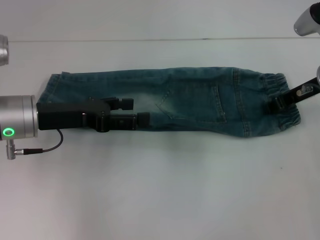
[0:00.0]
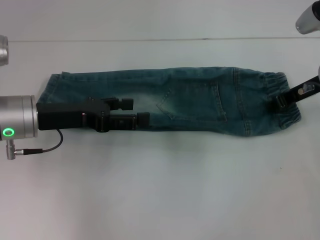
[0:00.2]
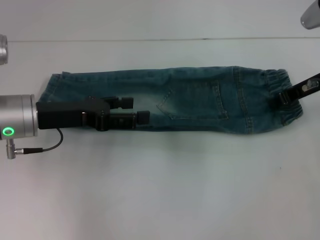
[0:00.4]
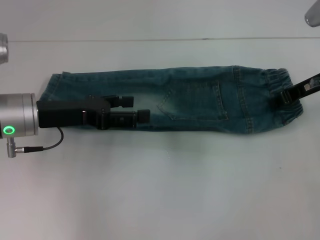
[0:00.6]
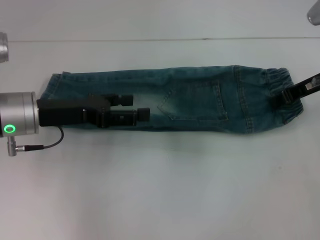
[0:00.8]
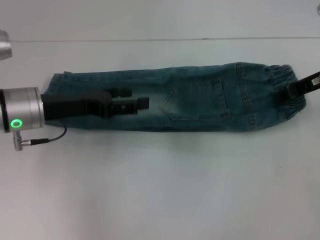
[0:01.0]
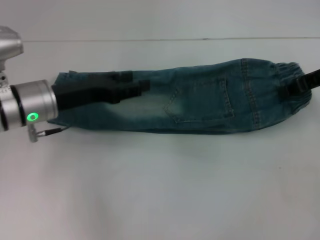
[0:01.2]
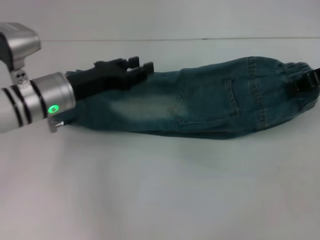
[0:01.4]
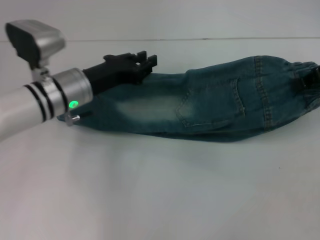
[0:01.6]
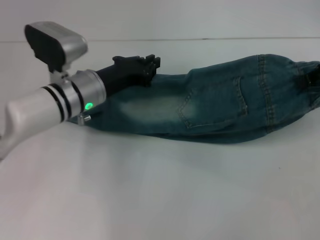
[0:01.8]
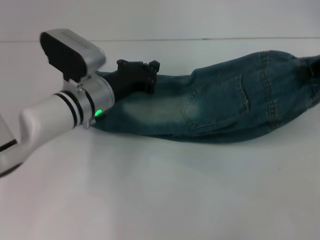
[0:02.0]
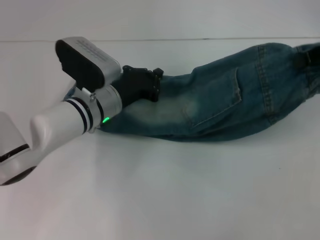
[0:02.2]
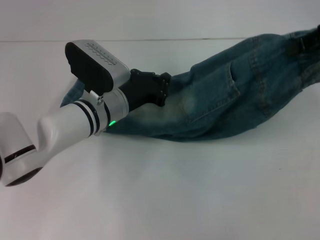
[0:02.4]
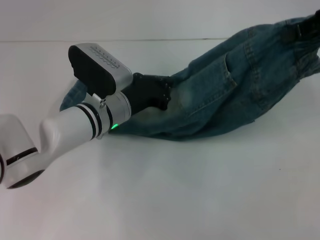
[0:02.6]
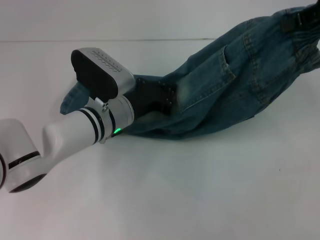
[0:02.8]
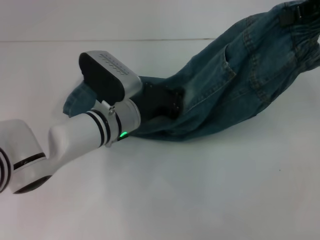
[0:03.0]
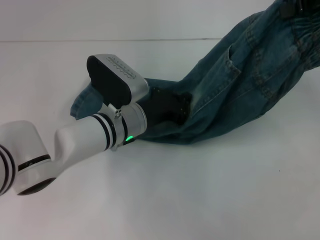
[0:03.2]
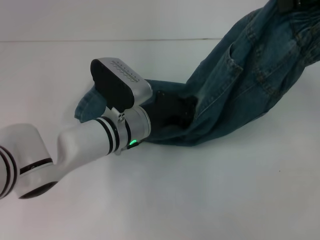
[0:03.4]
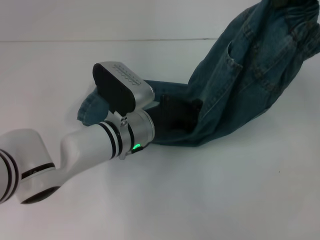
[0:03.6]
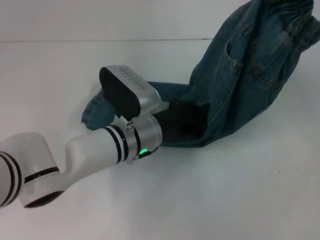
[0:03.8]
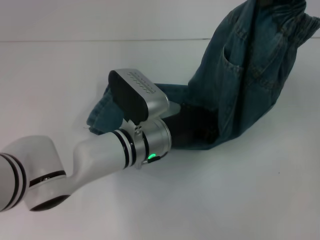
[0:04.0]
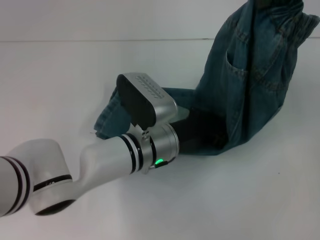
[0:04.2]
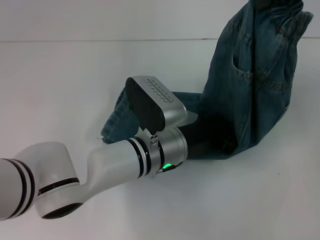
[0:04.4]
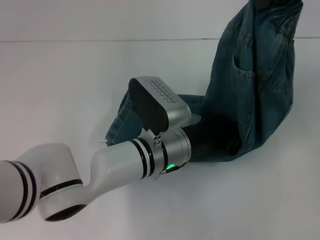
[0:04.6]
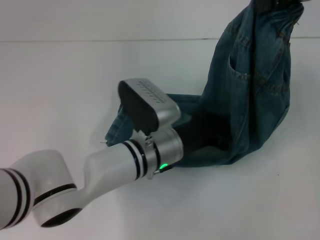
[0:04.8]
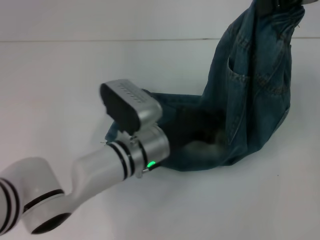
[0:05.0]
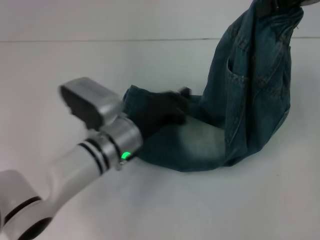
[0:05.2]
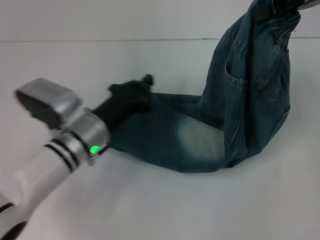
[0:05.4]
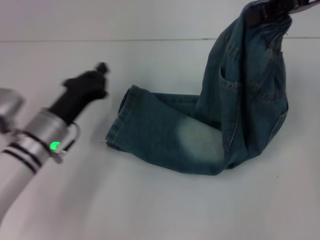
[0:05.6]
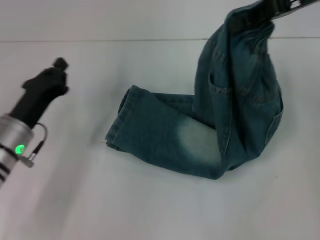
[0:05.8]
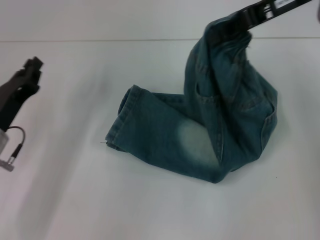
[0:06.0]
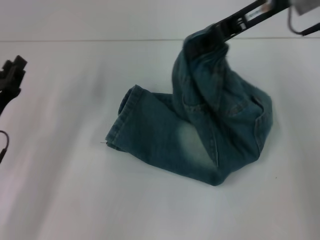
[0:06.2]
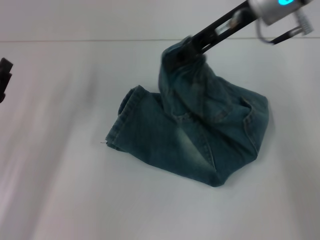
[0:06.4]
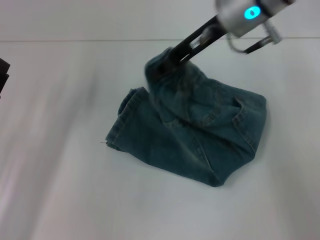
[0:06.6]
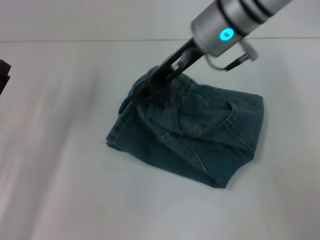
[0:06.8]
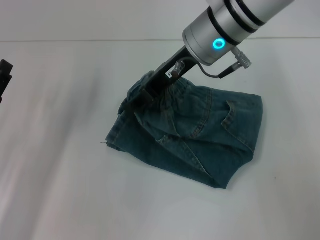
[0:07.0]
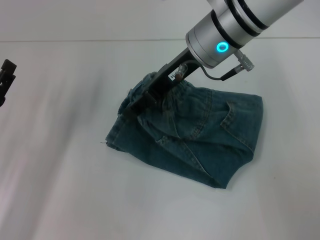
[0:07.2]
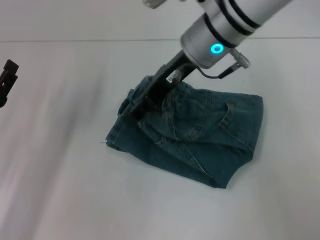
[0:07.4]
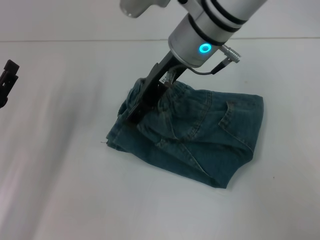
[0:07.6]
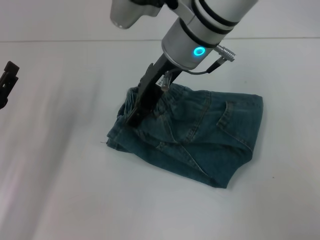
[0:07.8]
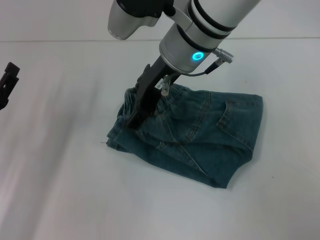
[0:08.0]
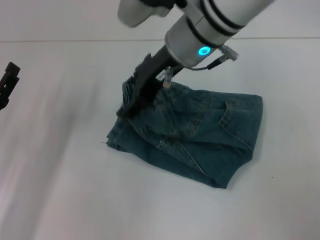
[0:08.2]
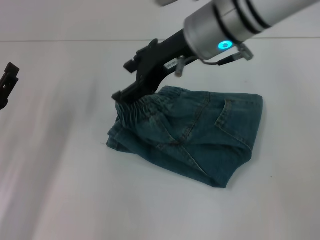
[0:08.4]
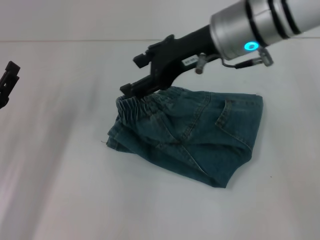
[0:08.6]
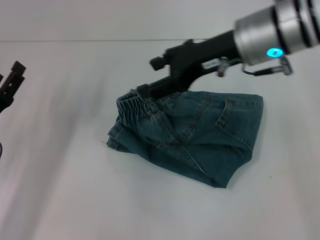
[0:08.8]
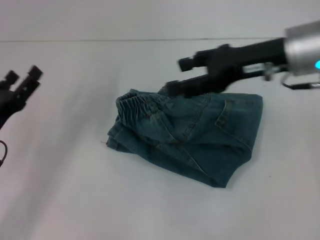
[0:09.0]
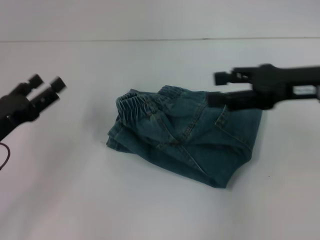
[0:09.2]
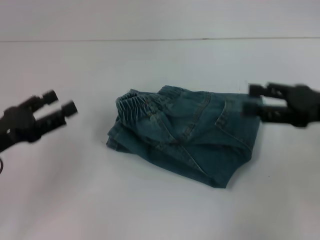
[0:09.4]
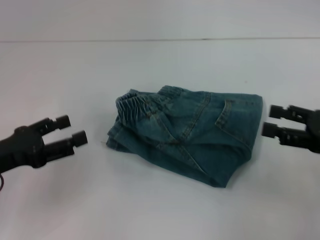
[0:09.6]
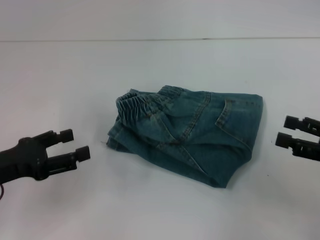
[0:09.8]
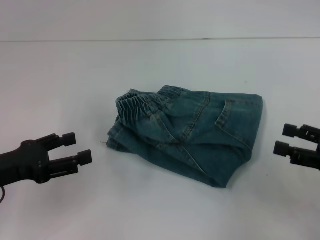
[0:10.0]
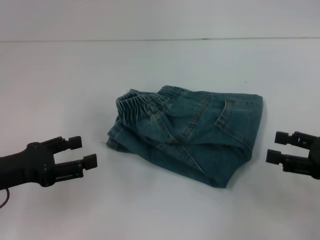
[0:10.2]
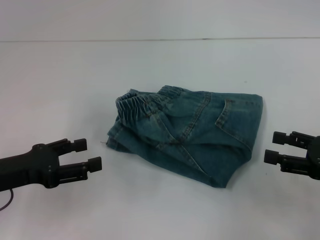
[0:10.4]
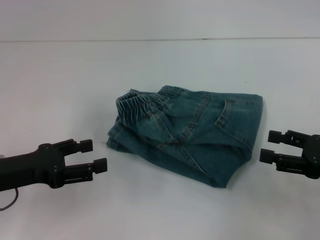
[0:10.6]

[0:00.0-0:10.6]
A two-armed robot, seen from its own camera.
Step, 0:00.0 to 0:04.6: Press the middle of the pants with your left hand.
Step, 0:05.0 to 0:08.4: Fold to the left with your right hand.
0:00.0 to 0:01.6: The right gripper moves upward and to the right, approximately 10 cm, and closes its fingers, while the left gripper is displaced to the right and forward by approximately 10 cm, and closes.
0:01.6 to 0:03.0: The left gripper heads to the right, covering some 5 cm, and closes its fingers; the right gripper goes approximately 10 cm upward.
0:03.0 to 0:04.6: The left gripper travels to the right and backward by about 10 cm.
0:04.6 to 0:06.0: The left gripper travels to the left by roughly 25 cm; the right gripper moves to the left, approximately 5 cm.
0:06.0 to 0:07.6: The left gripper opens. The right gripper is displaced to the left by some 15 cm, and opens up.
0:07.6 to 0:09.0: The right gripper moves to the right, approximately 15 cm.
0:09.0 to 0:10.6: The left gripper changes place by approximately 5 cm. The right gripper moves to the right, downward and backward, approximately 20 cm.

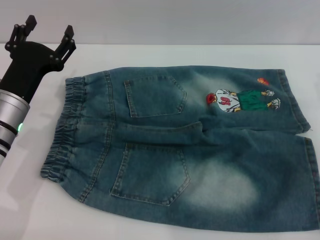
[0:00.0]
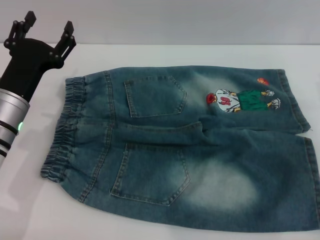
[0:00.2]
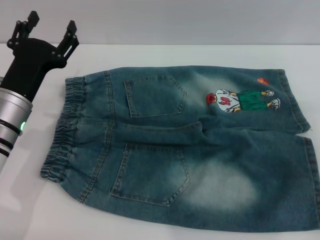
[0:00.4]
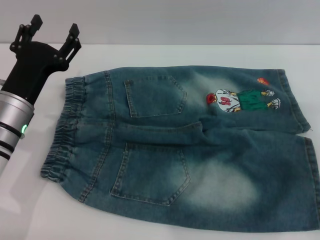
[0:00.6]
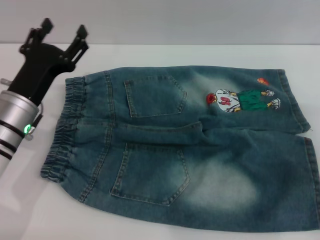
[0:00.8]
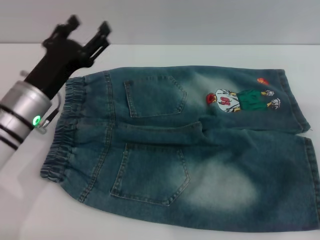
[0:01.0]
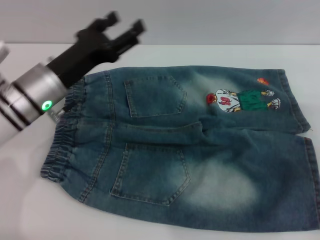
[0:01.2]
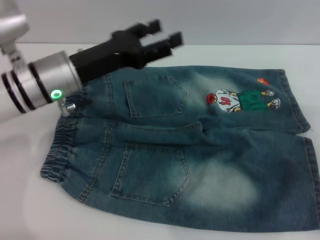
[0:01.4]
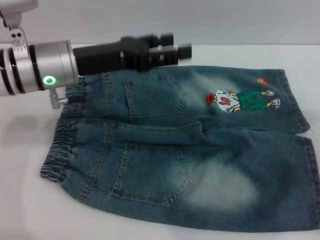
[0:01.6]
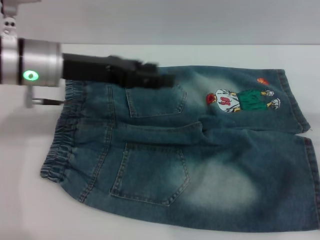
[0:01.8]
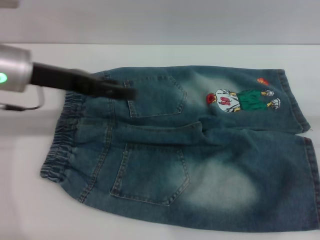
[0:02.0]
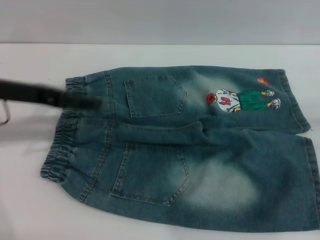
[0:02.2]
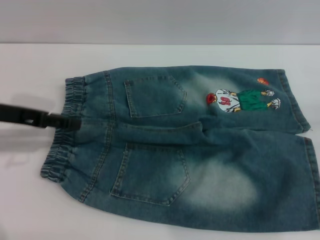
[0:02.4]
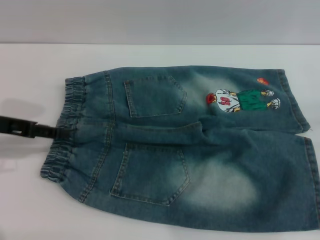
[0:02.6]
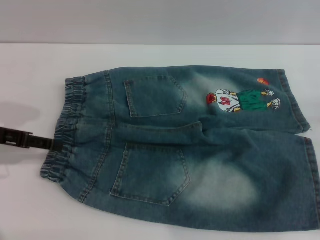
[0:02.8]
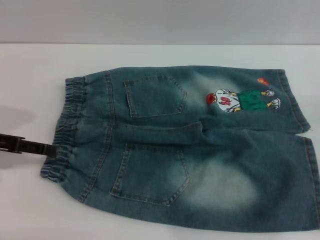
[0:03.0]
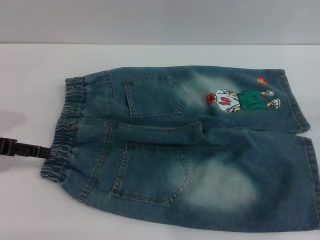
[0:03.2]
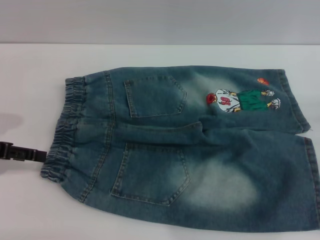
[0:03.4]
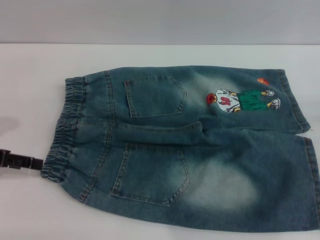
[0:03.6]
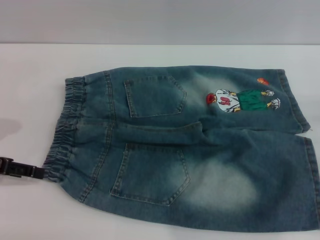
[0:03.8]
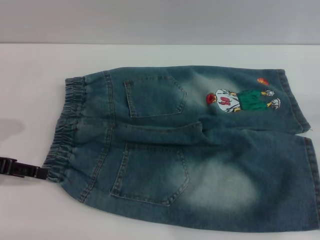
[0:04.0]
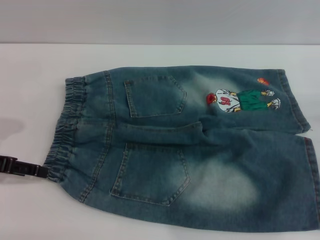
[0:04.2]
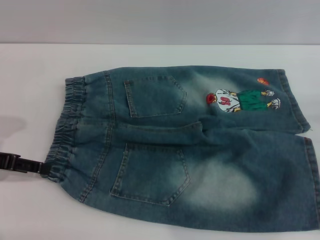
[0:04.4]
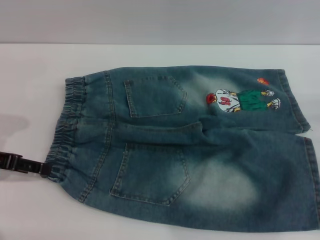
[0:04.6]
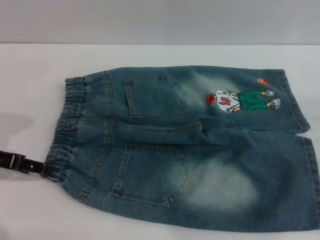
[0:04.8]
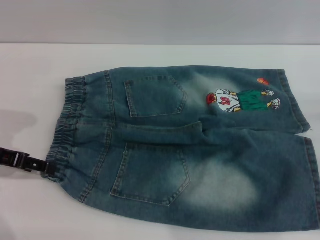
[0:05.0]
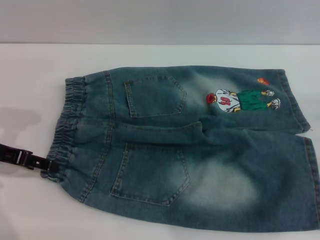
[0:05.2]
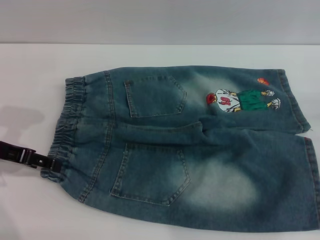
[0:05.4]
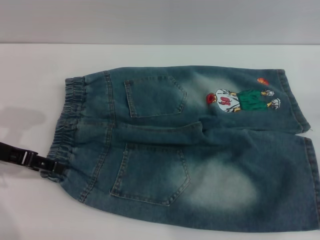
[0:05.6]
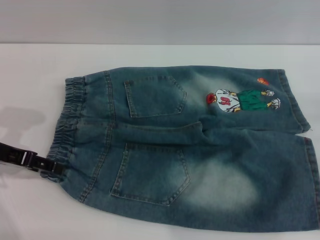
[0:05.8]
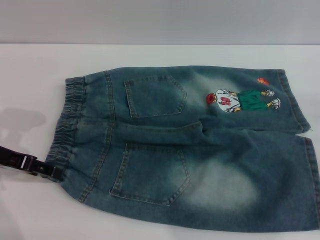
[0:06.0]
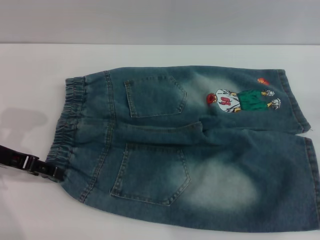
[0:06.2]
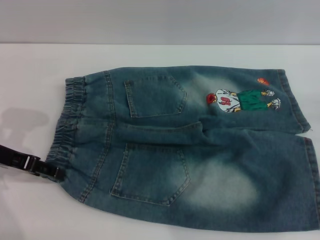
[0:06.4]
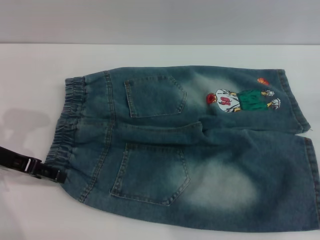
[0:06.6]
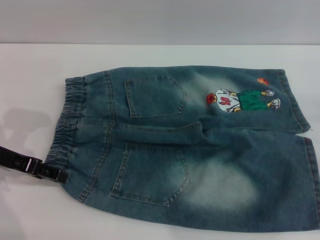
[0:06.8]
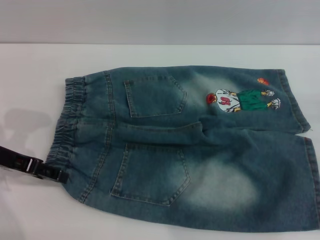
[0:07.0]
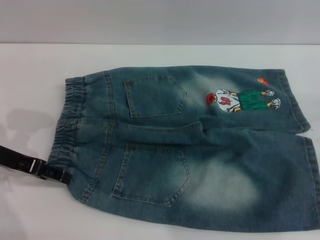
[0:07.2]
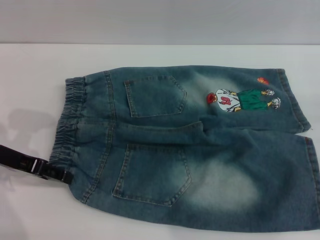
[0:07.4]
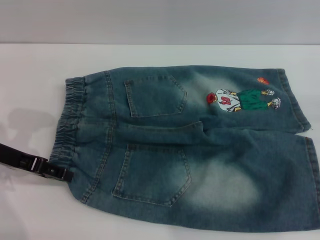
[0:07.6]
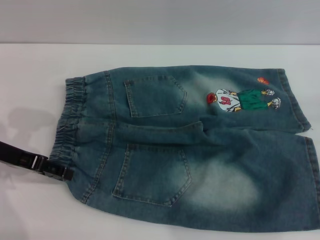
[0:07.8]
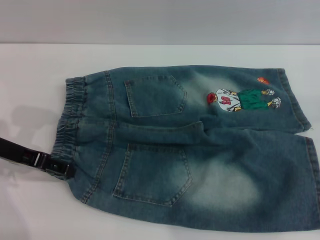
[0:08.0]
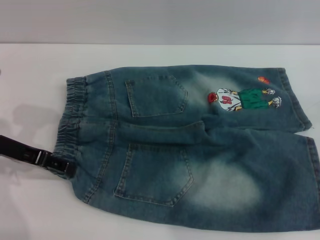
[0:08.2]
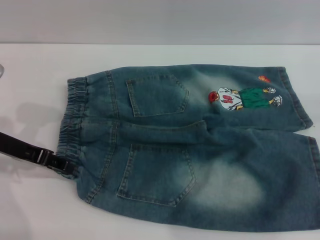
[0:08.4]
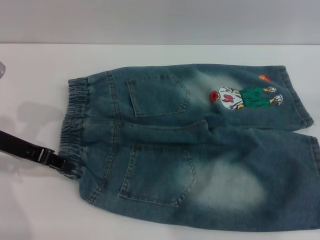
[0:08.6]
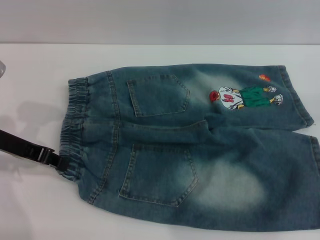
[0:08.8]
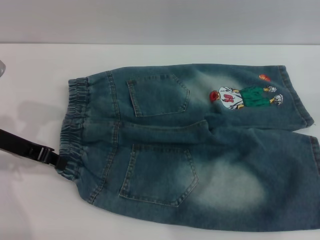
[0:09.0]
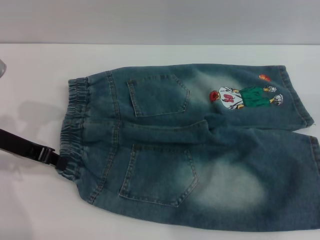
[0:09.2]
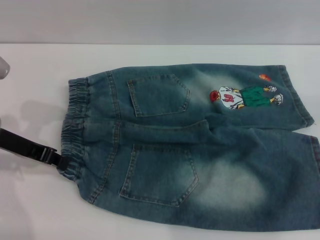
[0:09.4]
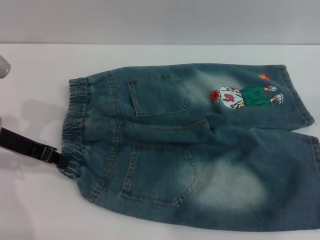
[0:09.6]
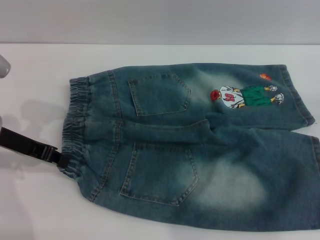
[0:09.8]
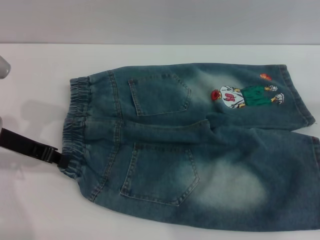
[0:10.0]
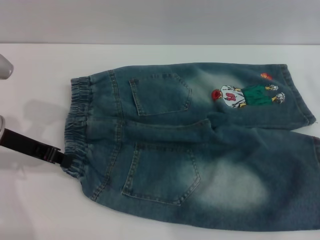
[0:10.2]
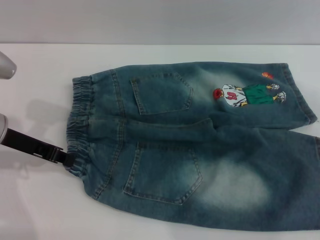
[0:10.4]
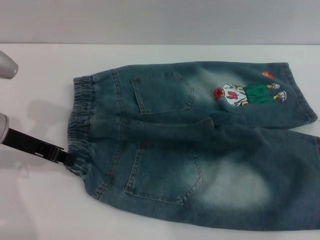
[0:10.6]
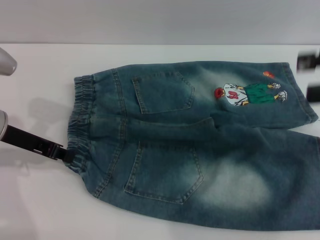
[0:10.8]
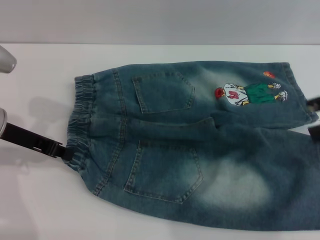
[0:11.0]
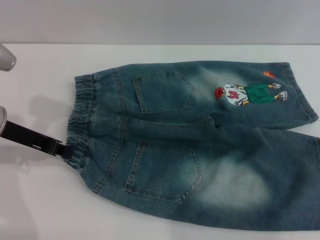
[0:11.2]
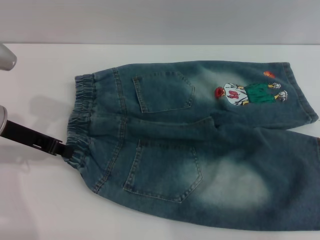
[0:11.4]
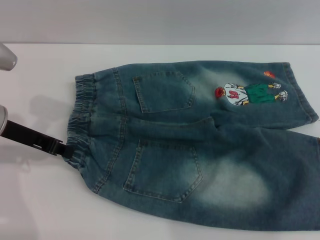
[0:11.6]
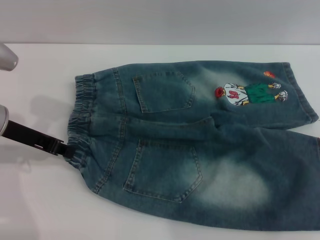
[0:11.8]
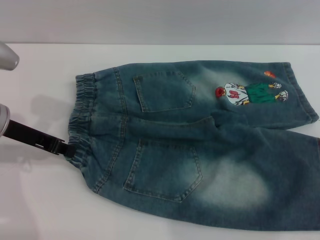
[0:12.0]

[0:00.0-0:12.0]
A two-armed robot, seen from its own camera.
0:00.0 to 0:01.6: The left gripper travels upward and to the right by approximately 10 cm.
0:01.6 to 0:03.0: The left gripper travels to the left by some 15 cm.
0:03.0 to 0:04.4: The grippers make only small movements.
0:06.0 to 0:07.6: The grippers stay close to where they were, moving slightly.
0:07.6 to 0:09.0: The left gripper closes.
0:09.0 to 0:10.4: The right gripper shifts approximately 15 cm upward and to the left.
0:10.4 to 0:12.0: The right gripper moves approximately 10 cm upward and comes back.
